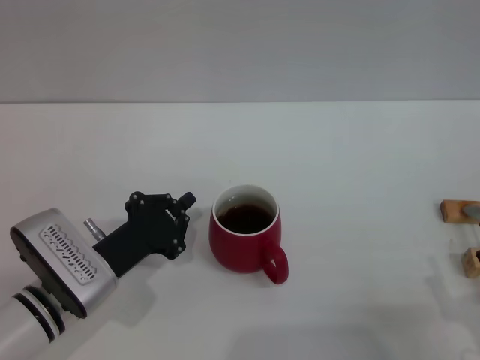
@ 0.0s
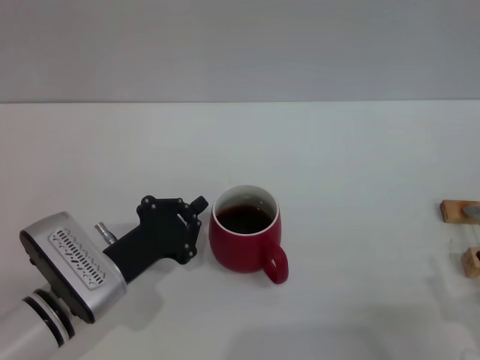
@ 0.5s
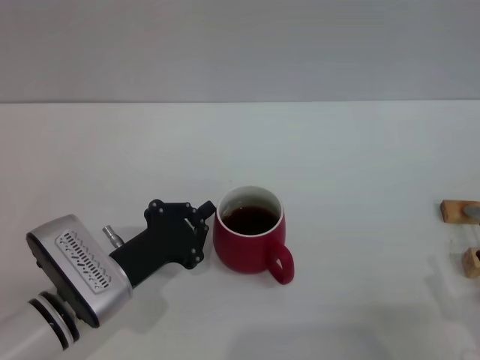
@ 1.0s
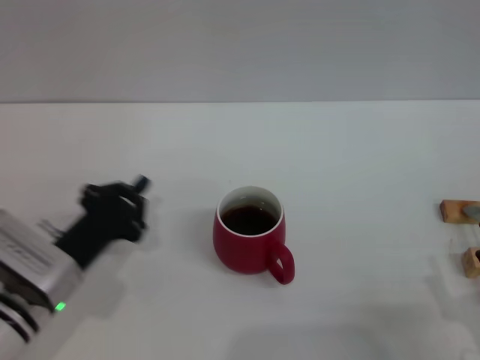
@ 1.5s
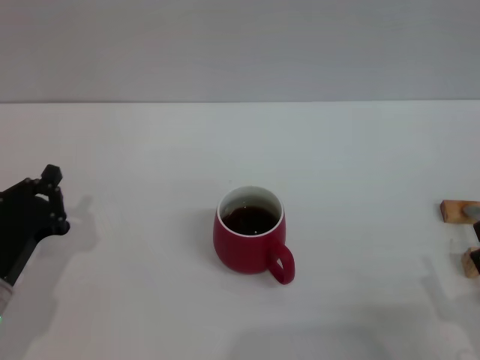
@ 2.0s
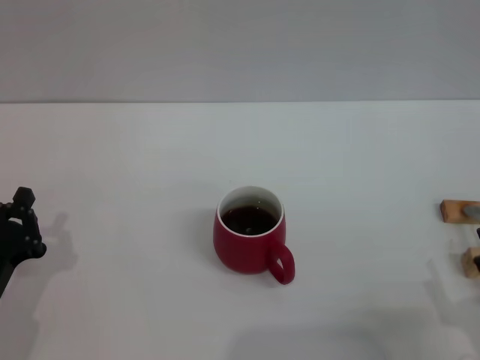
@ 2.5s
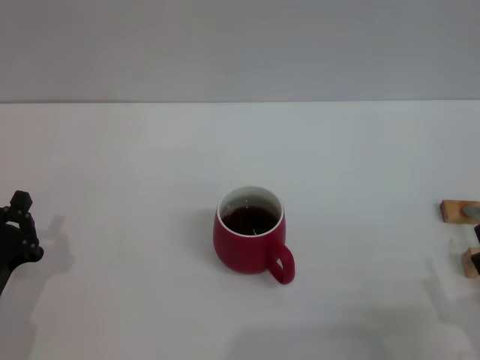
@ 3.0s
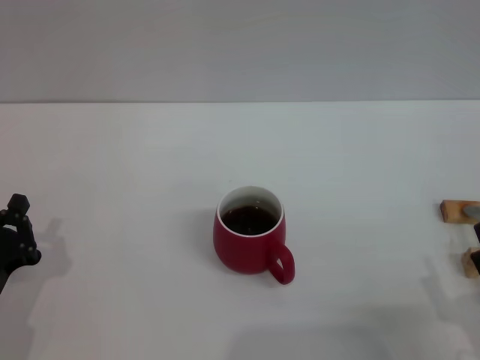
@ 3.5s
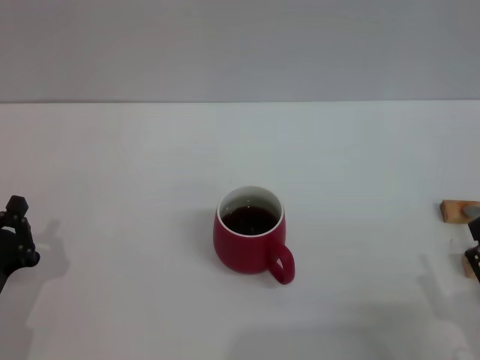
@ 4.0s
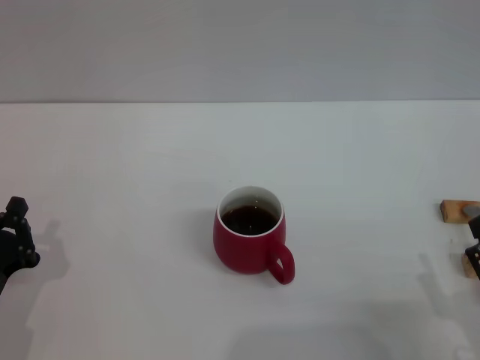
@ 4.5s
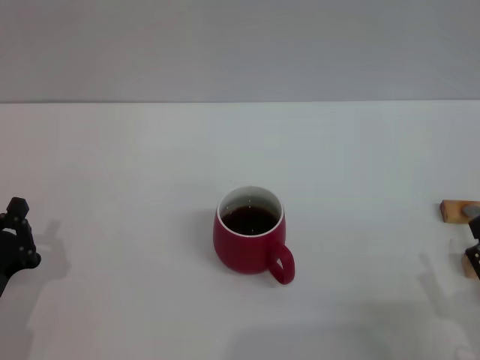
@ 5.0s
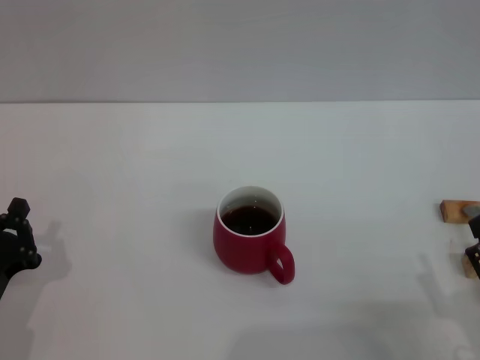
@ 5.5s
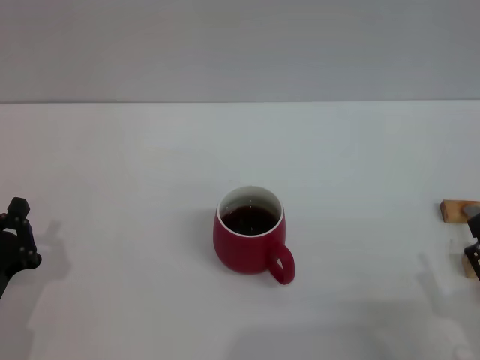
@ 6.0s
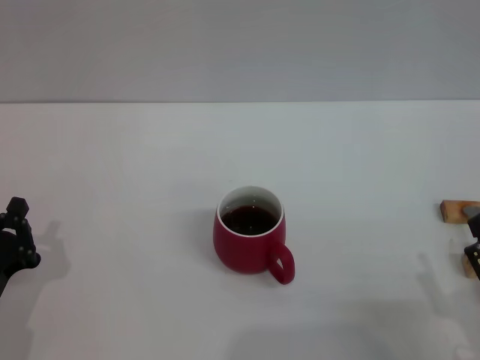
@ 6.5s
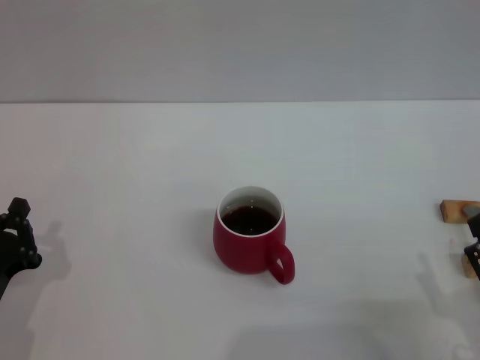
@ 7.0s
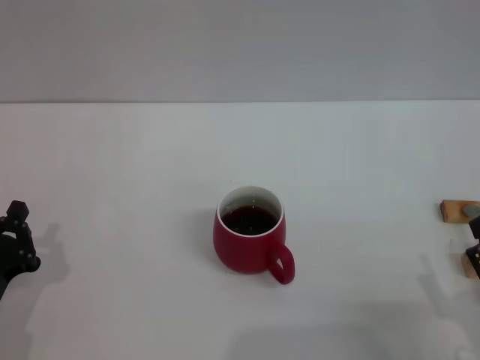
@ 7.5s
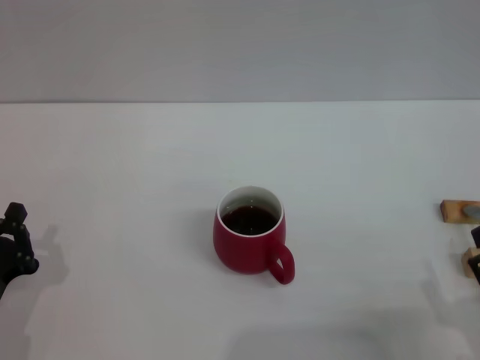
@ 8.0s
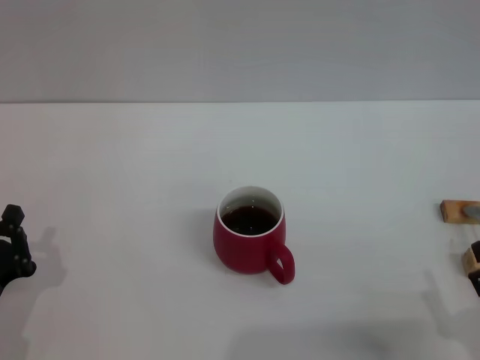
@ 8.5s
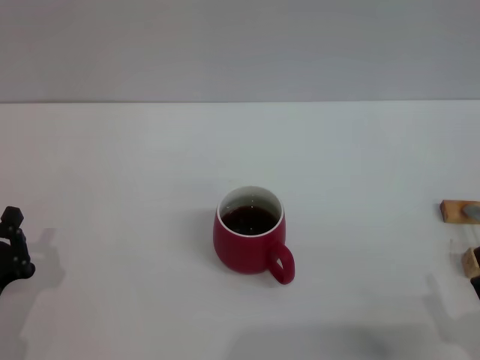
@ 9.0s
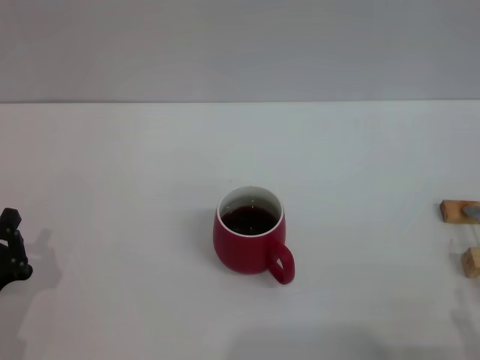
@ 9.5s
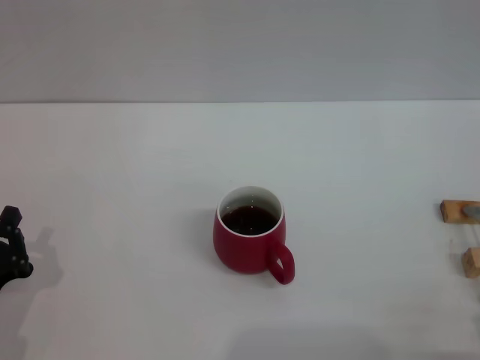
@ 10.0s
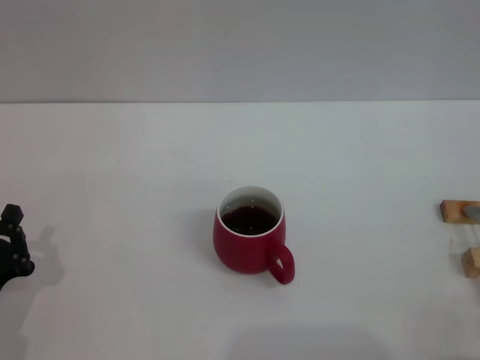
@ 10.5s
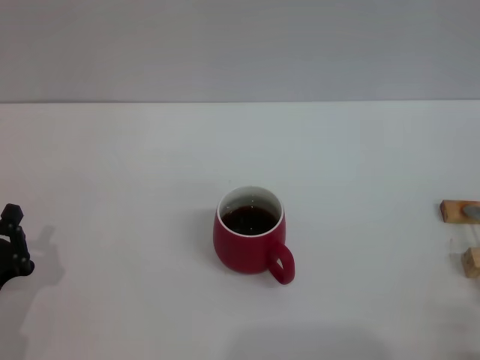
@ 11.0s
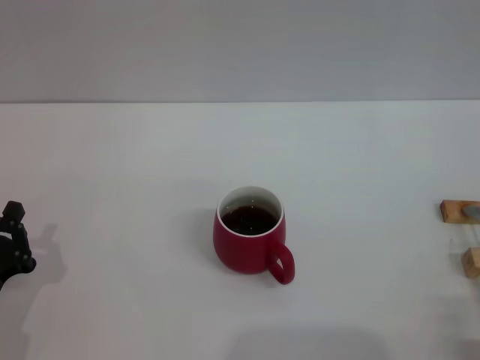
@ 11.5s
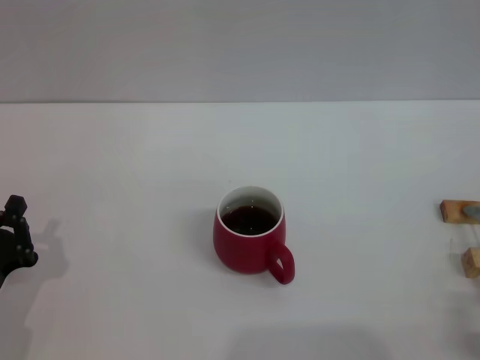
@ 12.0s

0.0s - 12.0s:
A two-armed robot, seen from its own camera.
Task of the whole recording: Move the red cup to the center, lift the pink spoon, stir it three times in the cup, and put the spoon into the cup.
Step, 0.0s - 1.0s: Move the cup with coffee to the center of view with the left gripper.
0.0s - 2.0s: The left gripper heads to the left, covering approximately 10 cm.
2.0s - 4.0s: The grippers make only small movements.
4.0s - 8.0s: The two grippers keep their place.
10.0s - 12.0s: The grippers move only a little.

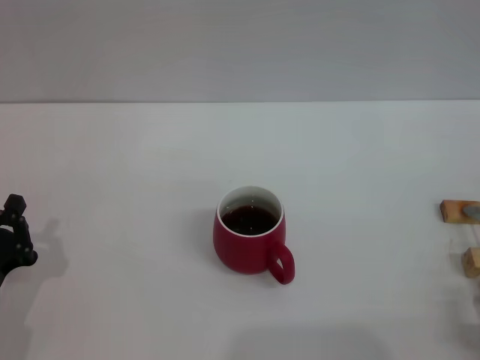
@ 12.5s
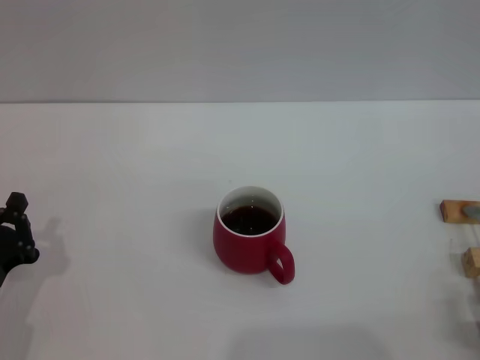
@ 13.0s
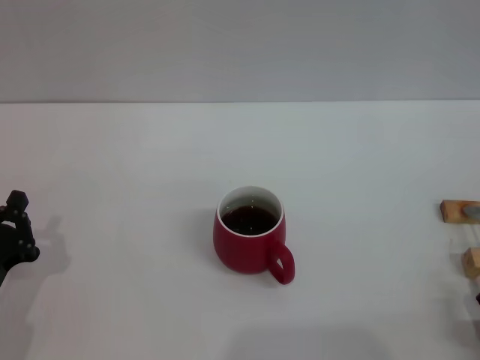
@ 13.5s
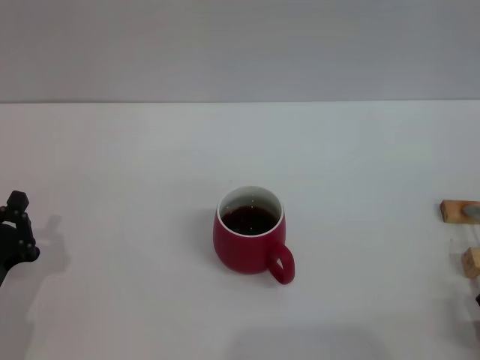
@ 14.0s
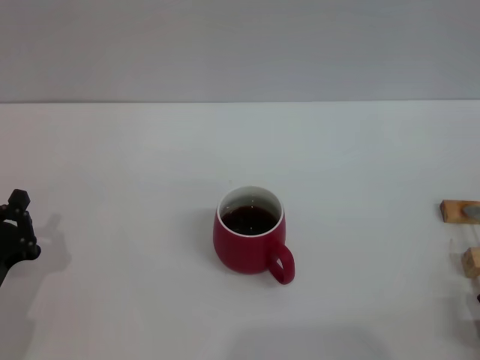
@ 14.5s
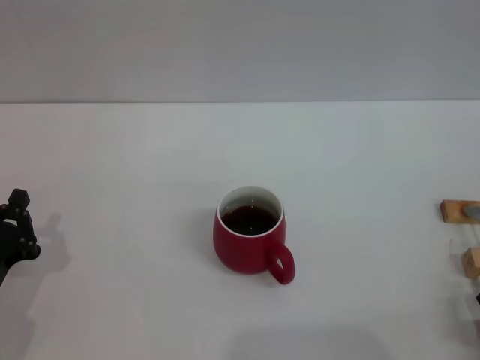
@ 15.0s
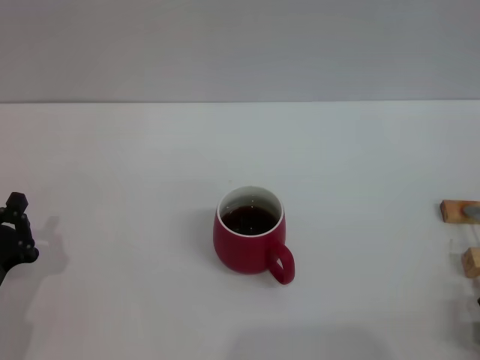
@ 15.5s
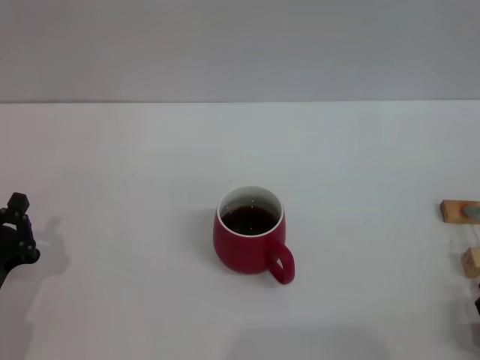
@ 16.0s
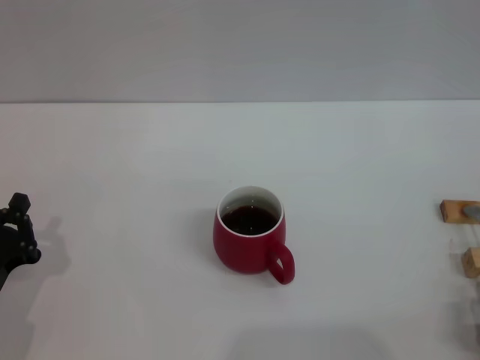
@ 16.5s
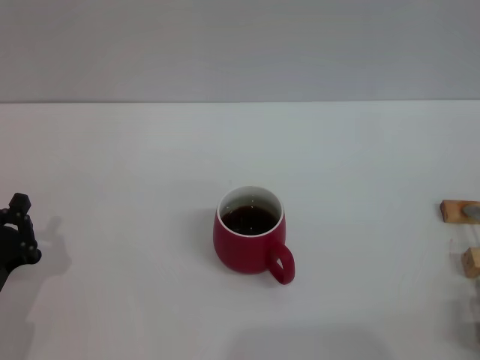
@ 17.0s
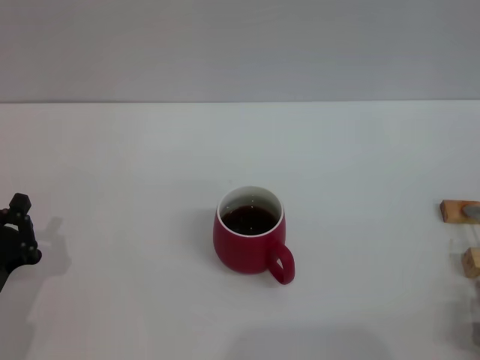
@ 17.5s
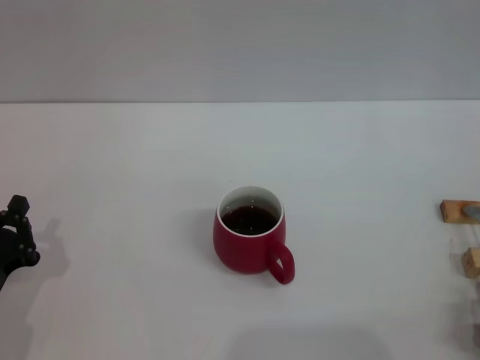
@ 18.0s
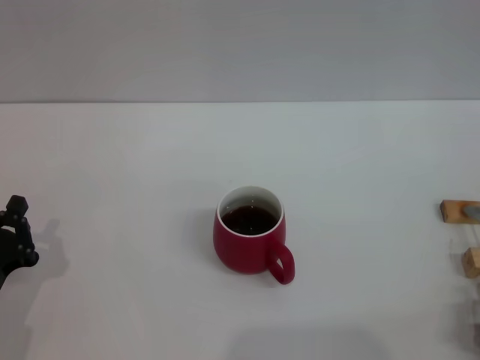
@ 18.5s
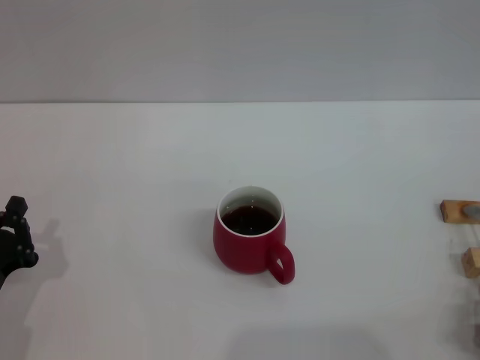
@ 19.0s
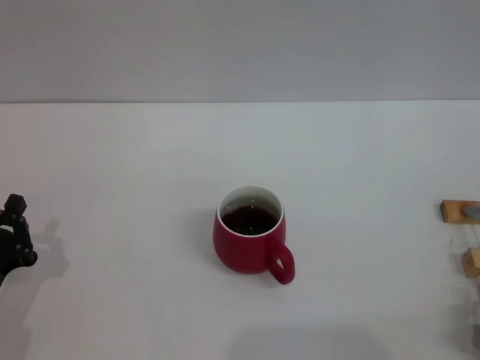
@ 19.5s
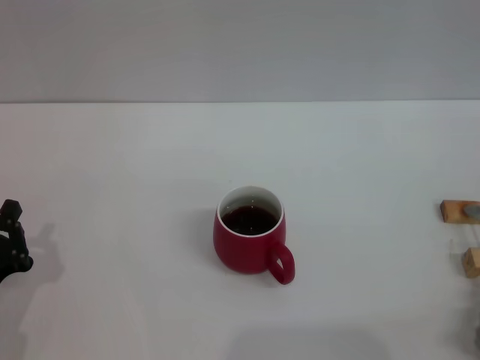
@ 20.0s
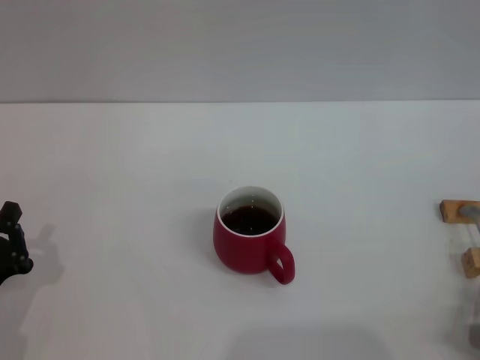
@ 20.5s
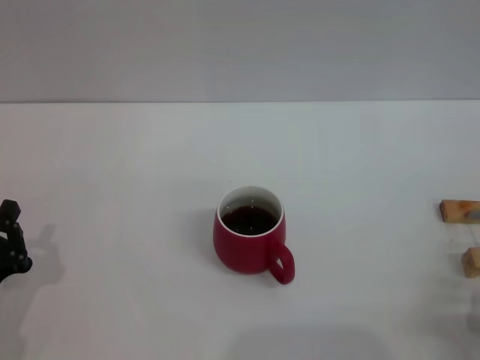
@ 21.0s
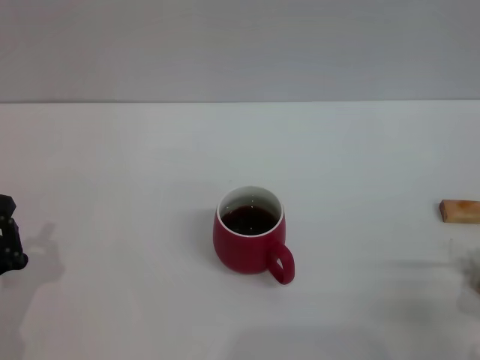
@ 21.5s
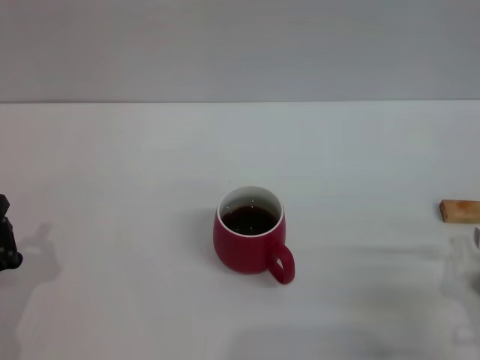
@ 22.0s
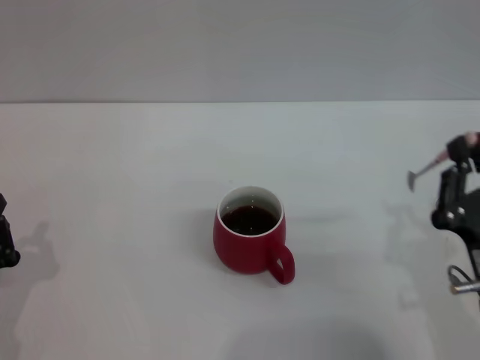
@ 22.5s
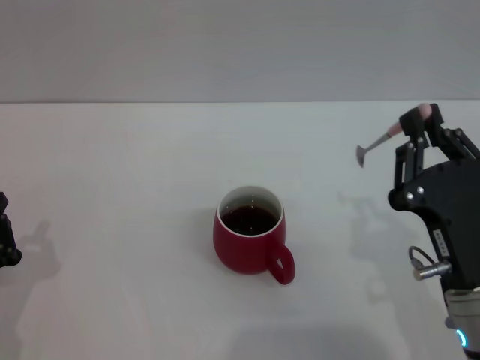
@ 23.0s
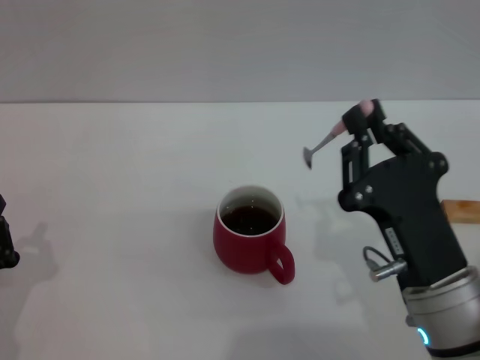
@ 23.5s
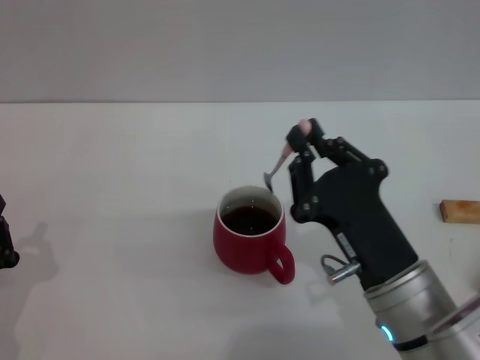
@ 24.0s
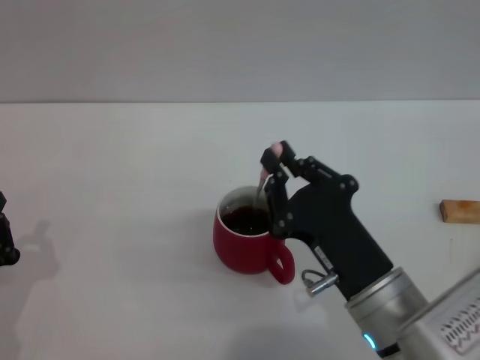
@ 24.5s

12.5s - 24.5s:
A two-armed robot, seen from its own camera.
Task of the whole recording: Move the red cup to the center, lift the pink spoon, stir it three times in the cup, and put the spoon into the cup.
12.5s - 18.5s: Both grippers stay put.
20.5s - 22.5s: The right gripper moves upward, forward and to the left, approximately 10 cm.
22.5s - 24.5s: The right gripper moves to the left, about 10 cm.

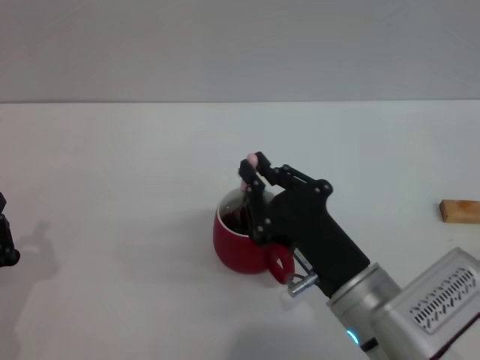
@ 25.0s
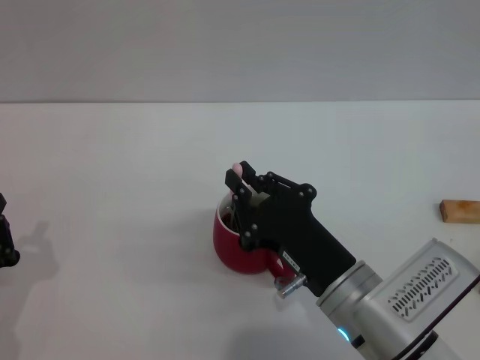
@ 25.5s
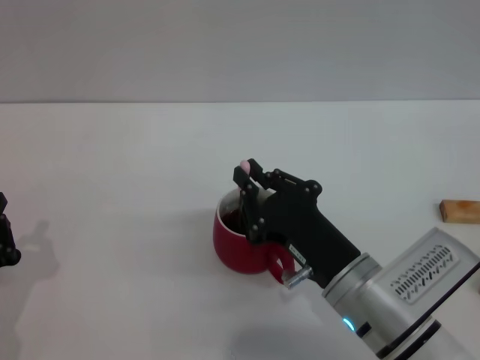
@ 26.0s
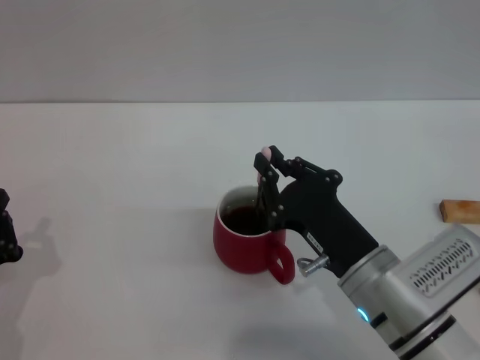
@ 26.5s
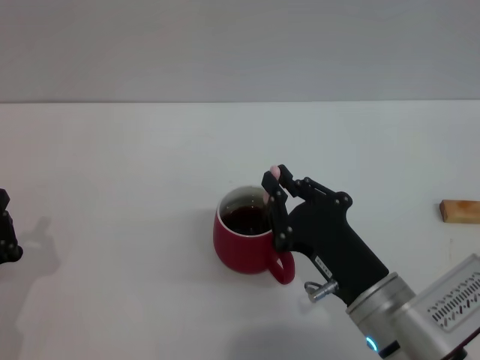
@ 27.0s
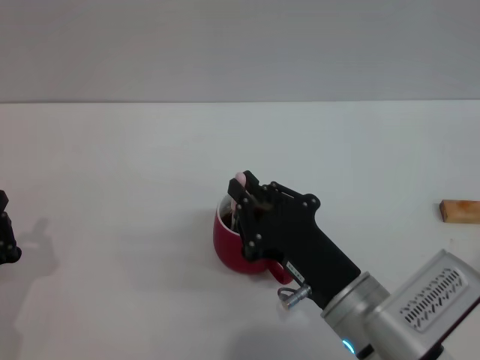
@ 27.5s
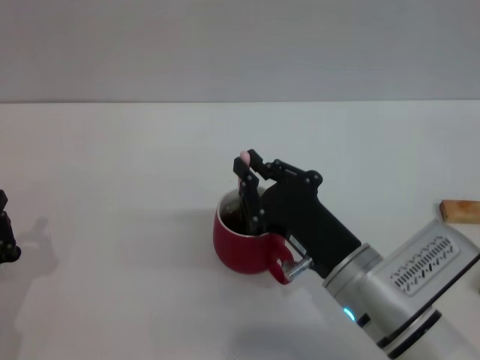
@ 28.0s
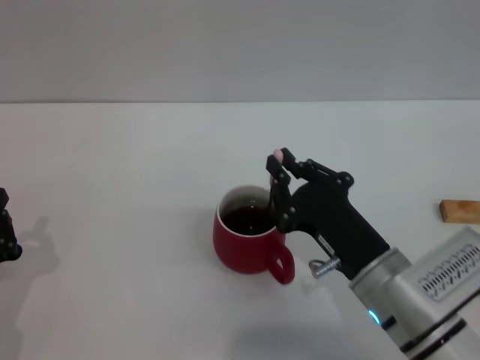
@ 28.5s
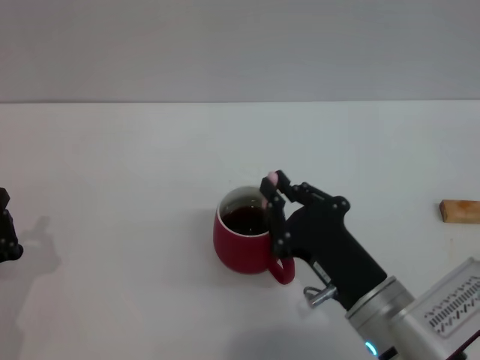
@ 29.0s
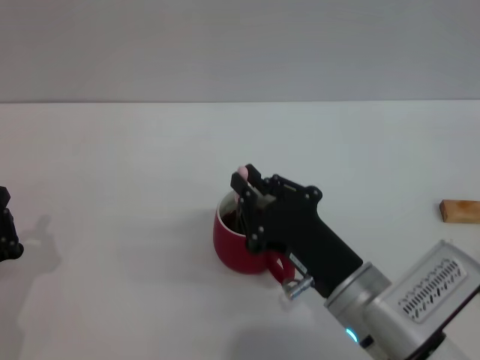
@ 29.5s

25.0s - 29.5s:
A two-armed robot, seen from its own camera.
Task of the whole recording: Move the red cup to the center, lift the pink spoon, stir it three times in the cup, and put the spoon into the cup.
25.0s - 29.5s: The grippers move only a little.
